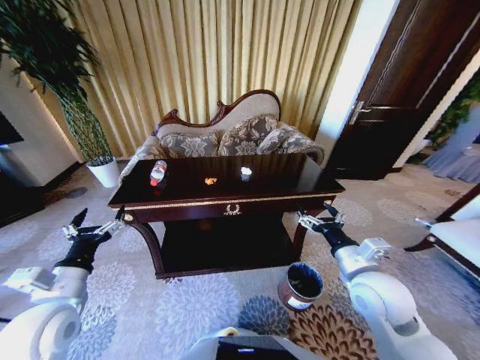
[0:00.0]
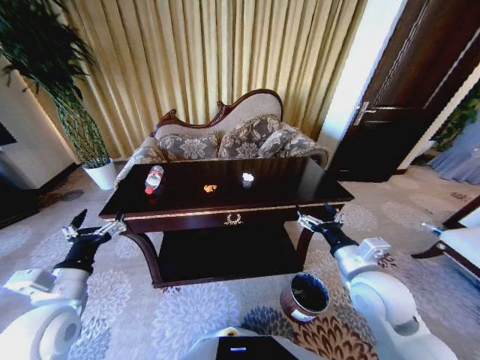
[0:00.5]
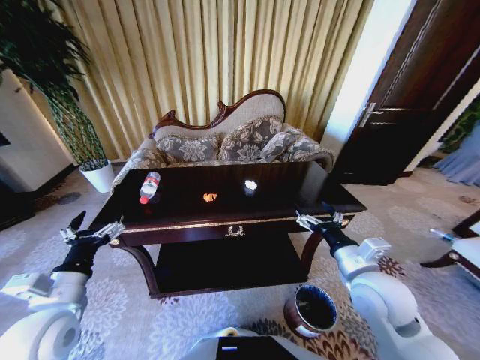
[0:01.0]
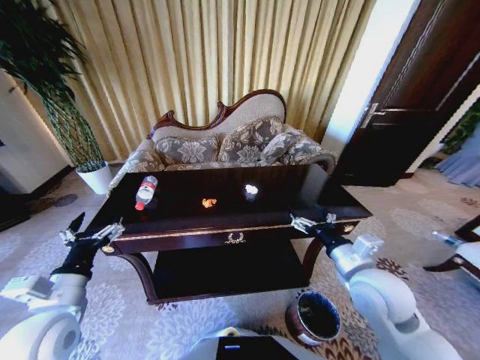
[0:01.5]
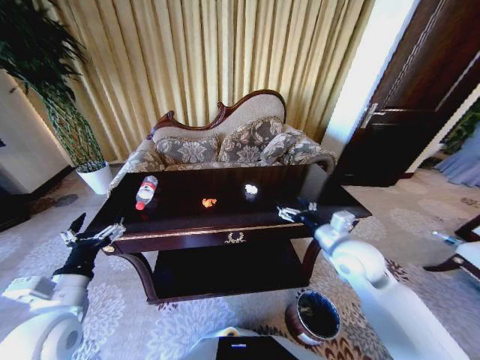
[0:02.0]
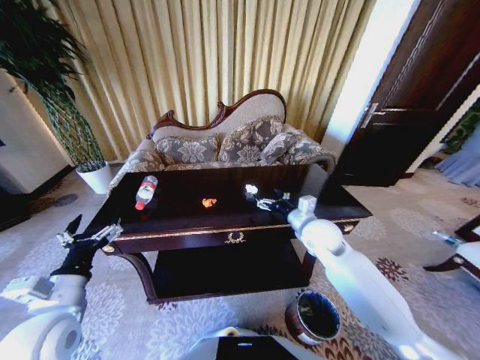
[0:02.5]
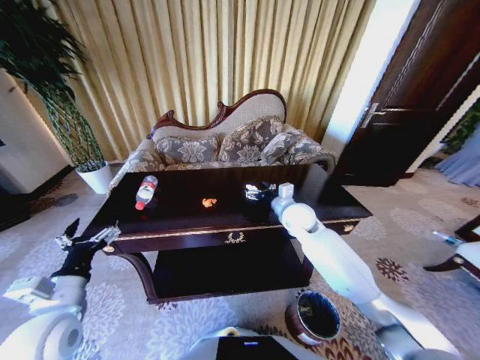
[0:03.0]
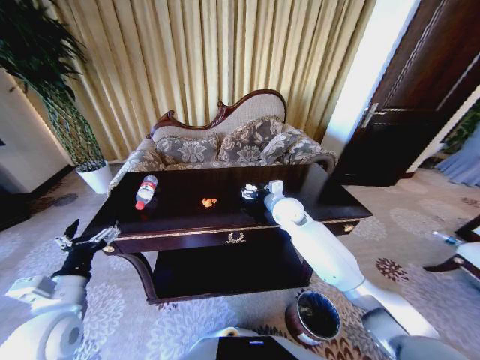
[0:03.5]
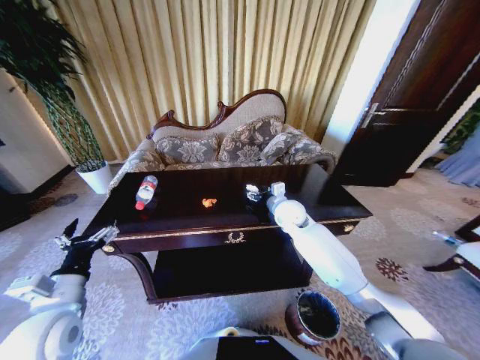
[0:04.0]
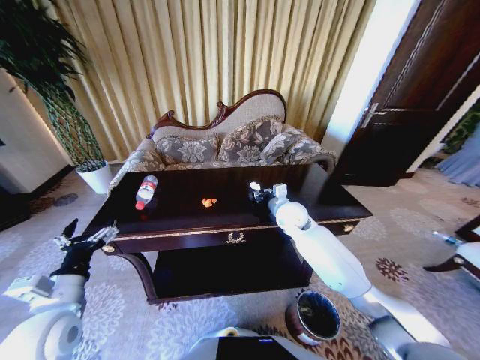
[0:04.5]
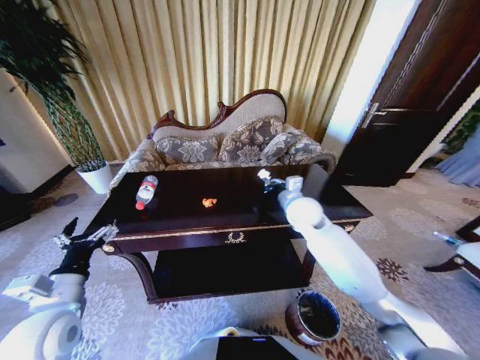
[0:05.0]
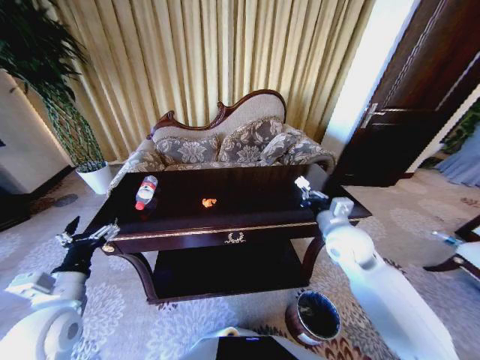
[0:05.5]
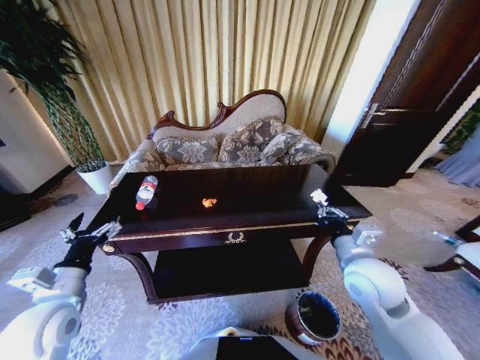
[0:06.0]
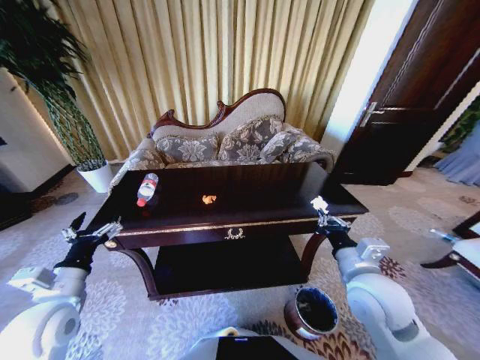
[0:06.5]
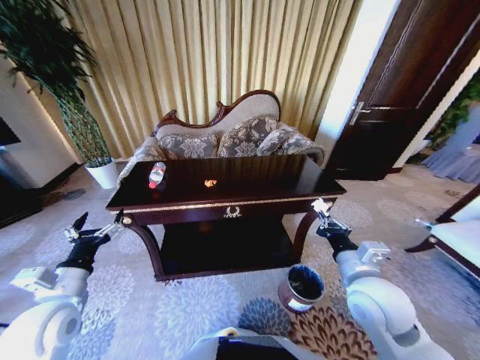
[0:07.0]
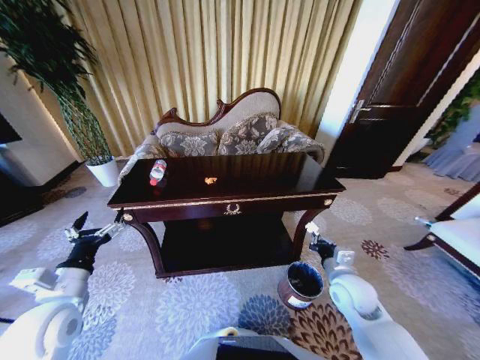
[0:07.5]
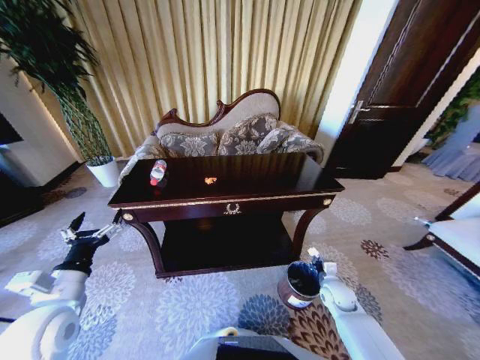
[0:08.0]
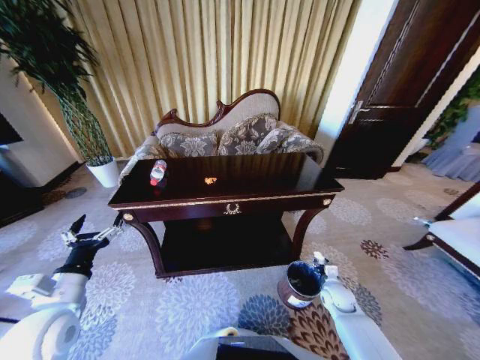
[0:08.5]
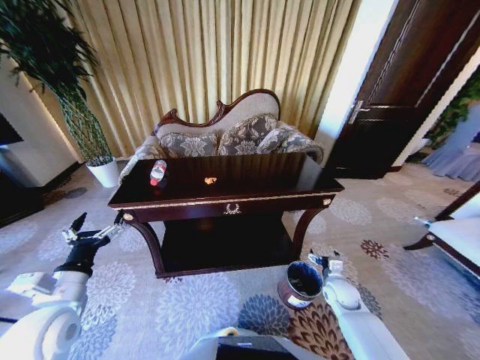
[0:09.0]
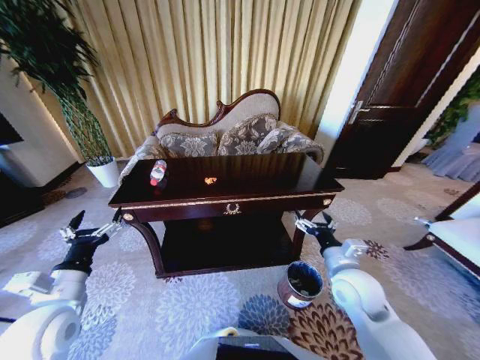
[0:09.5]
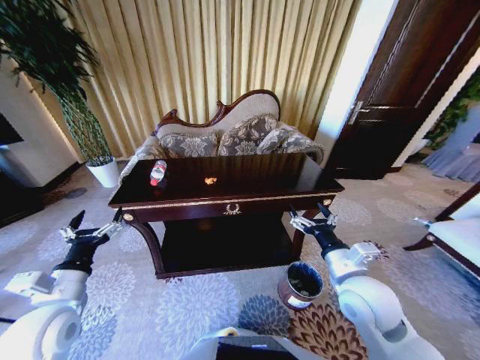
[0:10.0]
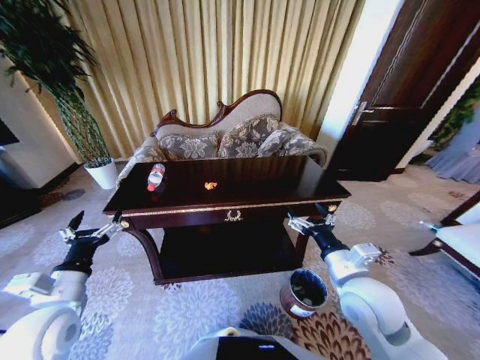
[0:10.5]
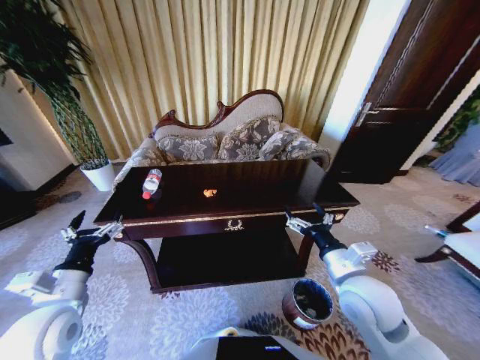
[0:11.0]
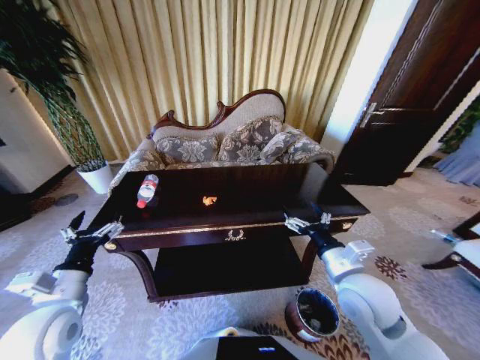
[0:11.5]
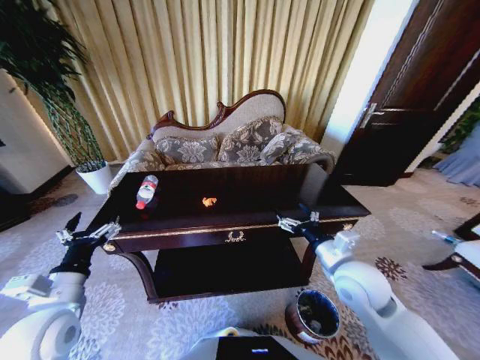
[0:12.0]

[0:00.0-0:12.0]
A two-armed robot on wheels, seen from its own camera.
Task of the whole recording: Move to the front of the table and place the trash on the table into the trash bin.
0:00.0 to 0:02.0: The right gripper travels forward by some 10 cm.
0:02.0 to 0:04.0: The right gripper moves forward and to the left, some 20 cm.
0:04.0 to 0:06.0: The right gripper is displaced backward and to the right by approximately 25 cm, and closes up.
0:06.0 to 0:08.0: The right gripper heads downward, covering approximately 25 cm.
0:08.0 to 0:10.0: The right gripper shifts roughly 25 cm upward, and opens up.

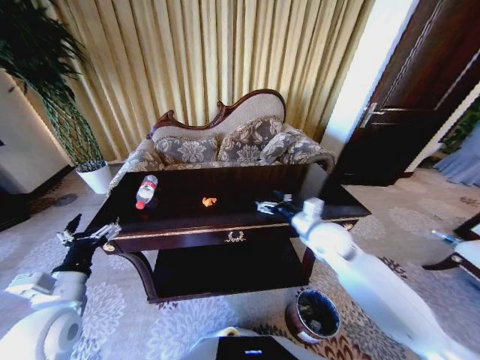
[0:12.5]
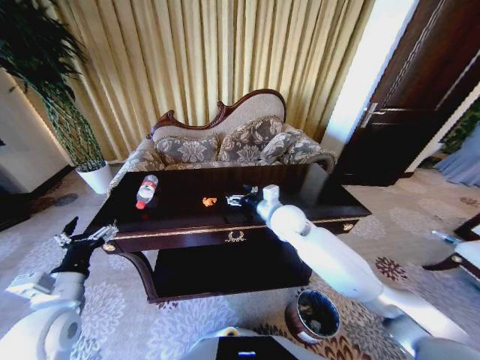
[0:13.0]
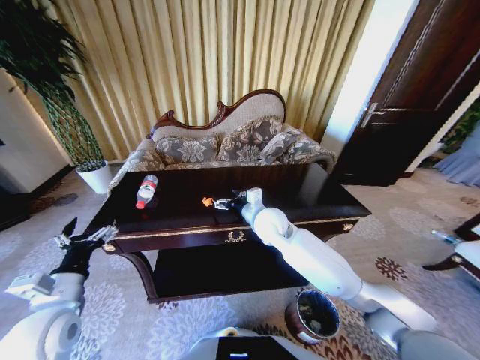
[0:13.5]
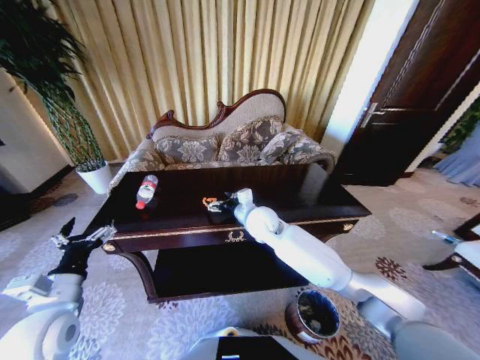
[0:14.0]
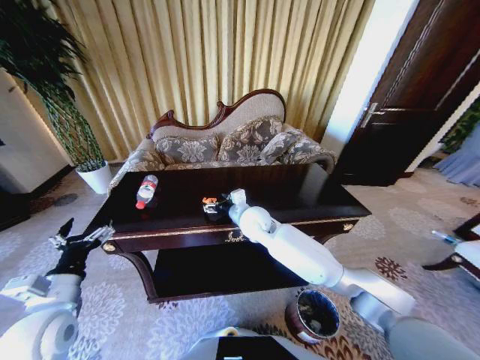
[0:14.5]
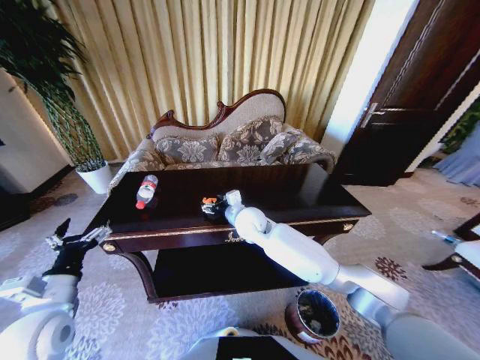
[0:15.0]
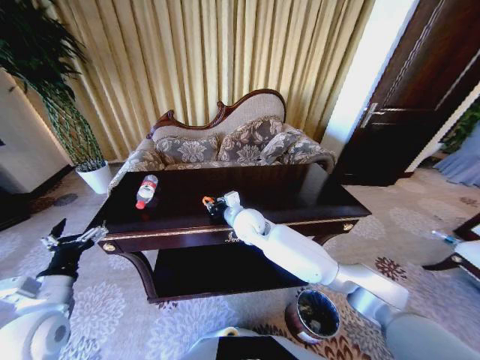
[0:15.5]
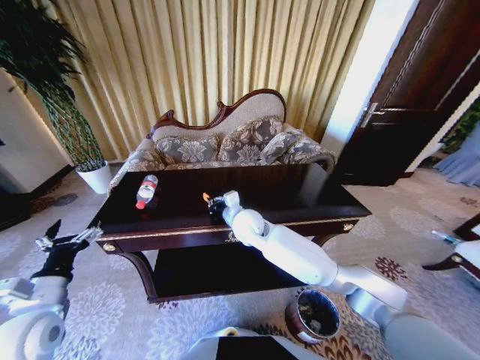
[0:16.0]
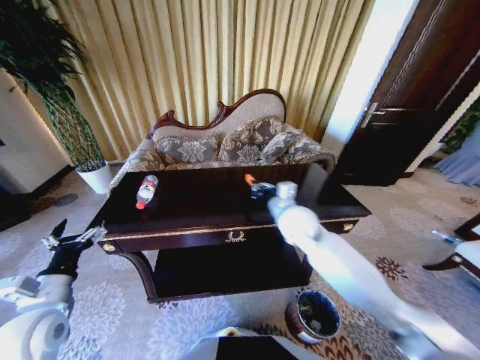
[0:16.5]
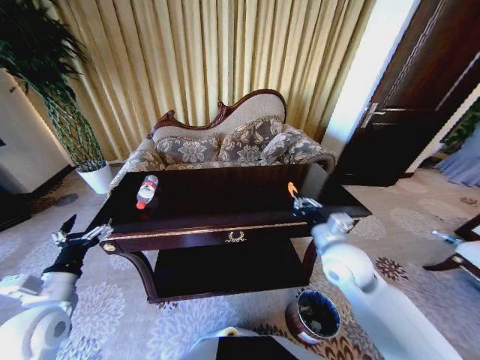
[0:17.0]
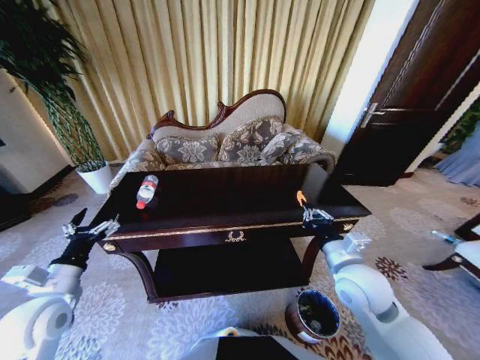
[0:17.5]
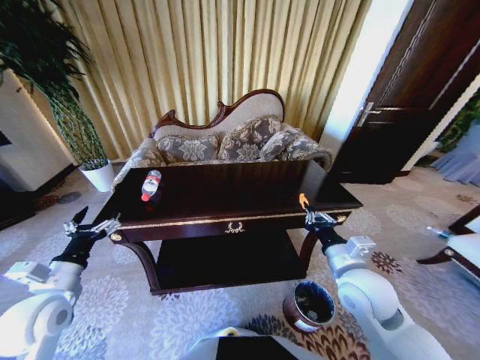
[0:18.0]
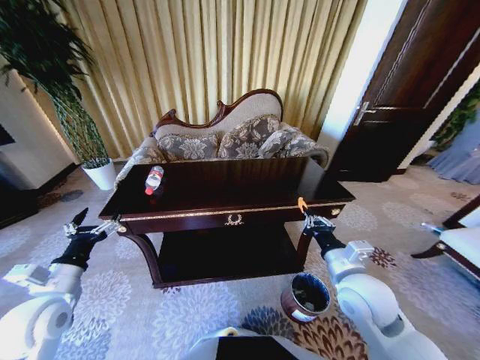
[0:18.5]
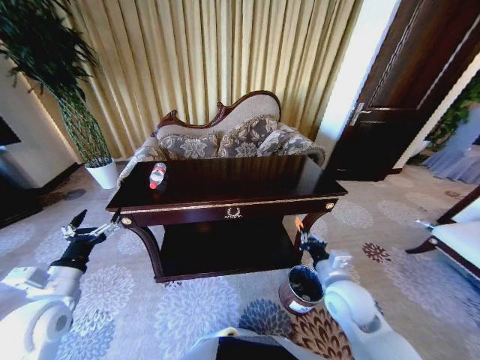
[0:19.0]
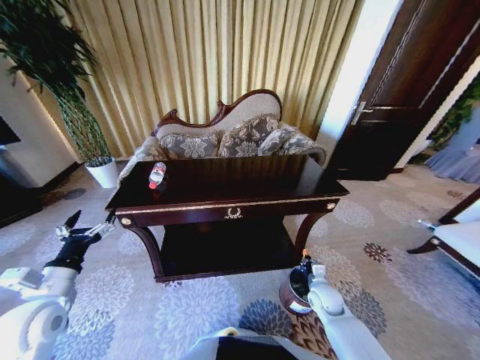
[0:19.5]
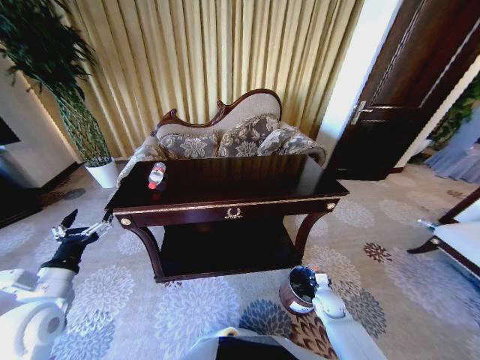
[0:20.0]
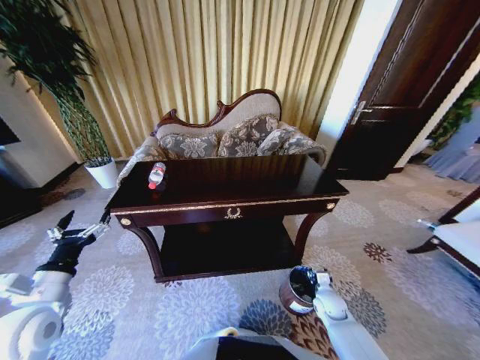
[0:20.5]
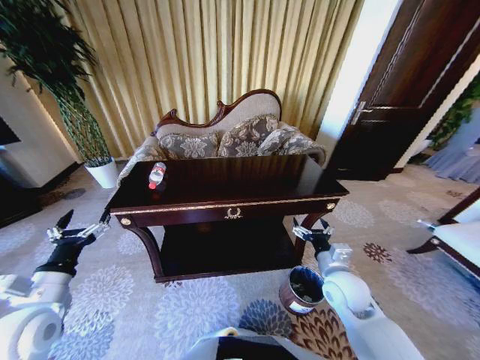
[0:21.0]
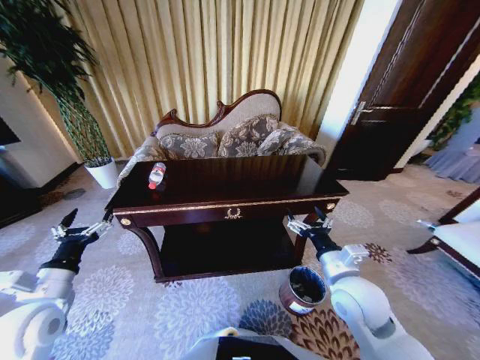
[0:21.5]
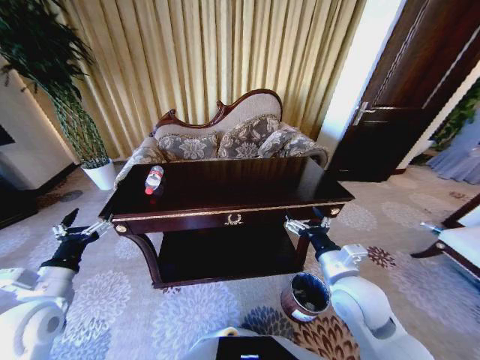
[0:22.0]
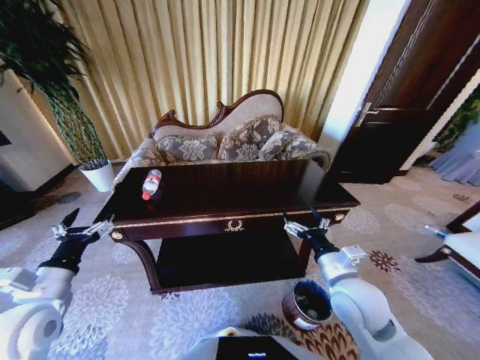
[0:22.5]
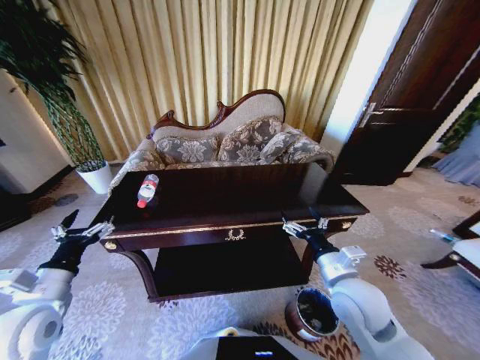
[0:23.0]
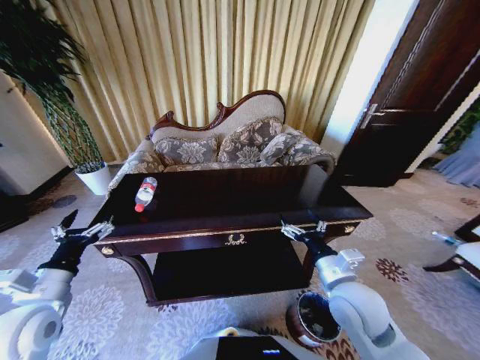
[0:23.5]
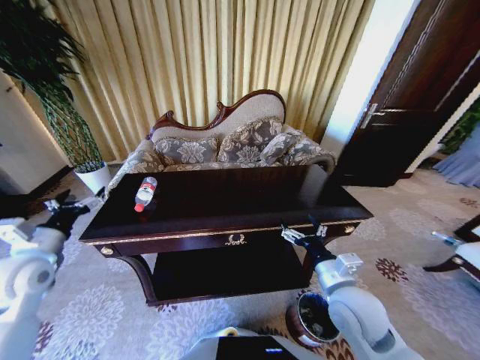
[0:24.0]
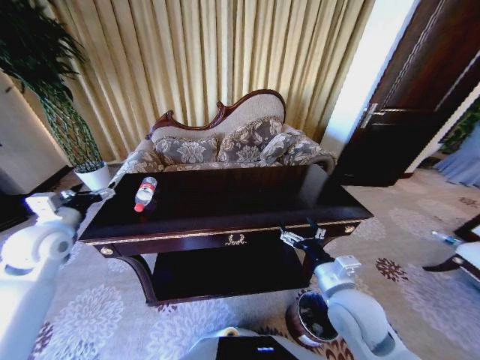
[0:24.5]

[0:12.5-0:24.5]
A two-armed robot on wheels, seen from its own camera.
Task of the whole recording: Move to the front of the table and place the trash on the table into the trash bin.
0:12.5 to 0:14.5: The right gripper goes about 20 cm to the left.
0:14.5 to 0:16.5: The right gripper goes approximately 10 cm to the right, and closes up.
0:16.5 to 0:18.5: The right gripper is displaced backward and to the right by roughly 20 cm.
0:18.5 to 0:20.5: The right gripper shifts about 30 cm downward, and opens its fingers.
0:20.5 to 0:22.5: The right gripper moves upward, some 25 cm, and opens up.
0:22.5 to 0:24.5: The left gripper goes about 15 cm forward.

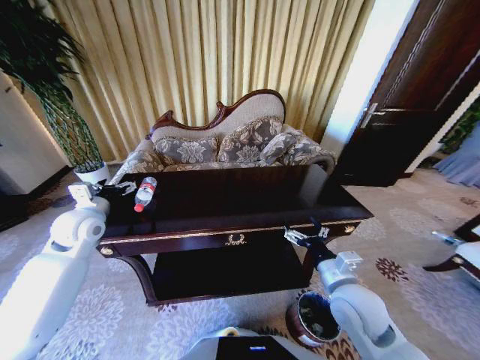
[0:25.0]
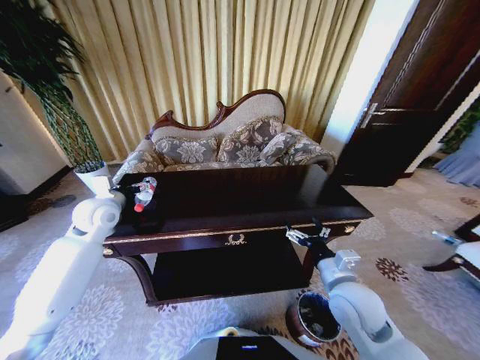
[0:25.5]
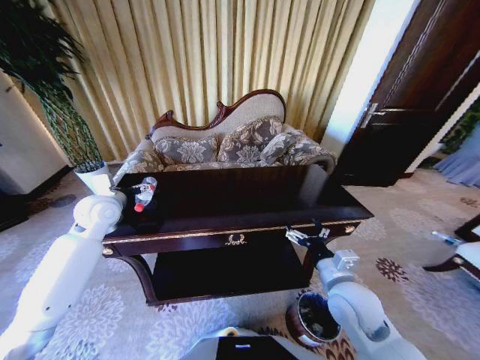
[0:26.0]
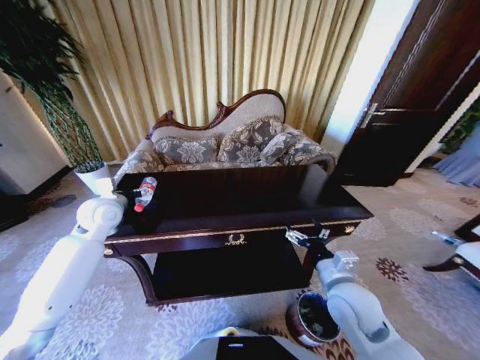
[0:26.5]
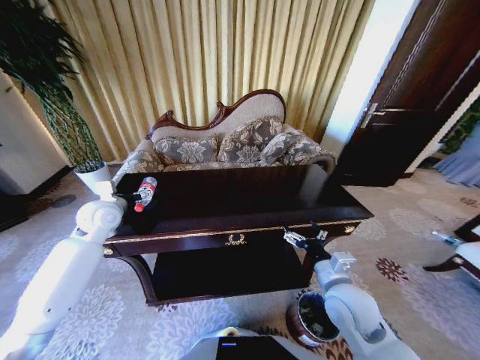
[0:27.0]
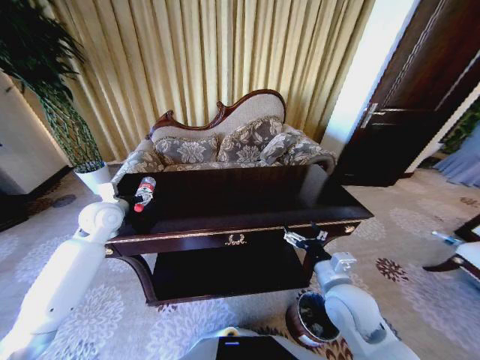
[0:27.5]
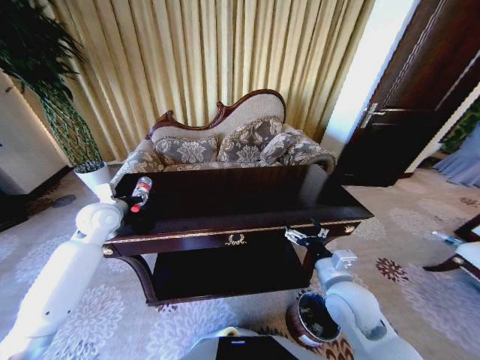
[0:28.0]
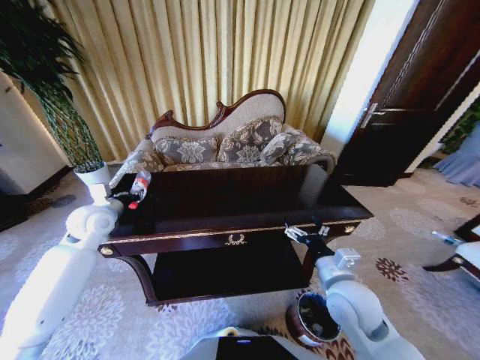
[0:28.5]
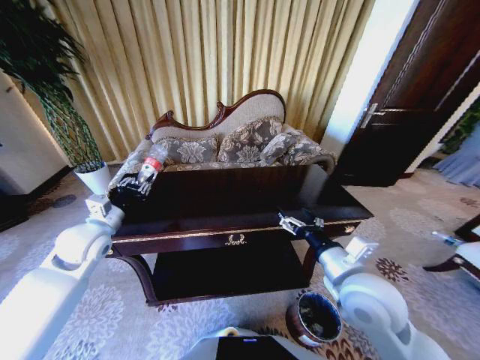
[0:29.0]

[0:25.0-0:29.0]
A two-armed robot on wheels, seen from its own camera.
Task of the whole recording: Move to the front of the table and place the trash on the table into the trash bin.
0:25.0 to 0:27.0: There are only small adjustments of the grippers.
0:27.0 to 0:29.0: The left gripper moves backward, approximately 10 cm, and closes; the right gripper shifts roughly 10 cm upward.
